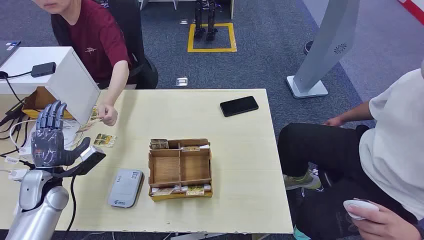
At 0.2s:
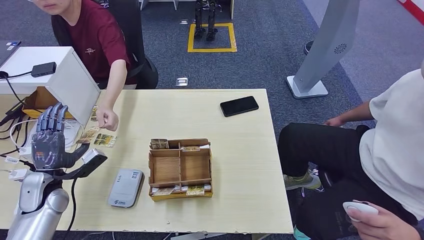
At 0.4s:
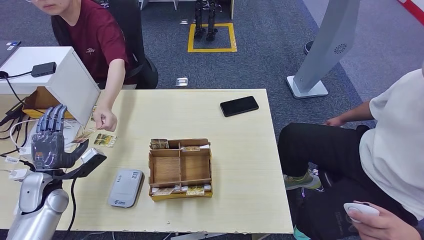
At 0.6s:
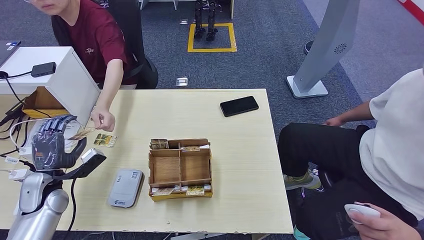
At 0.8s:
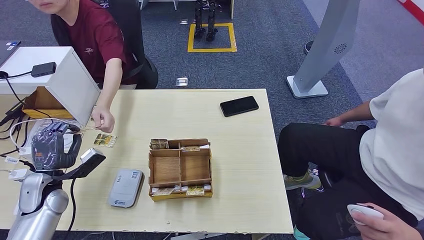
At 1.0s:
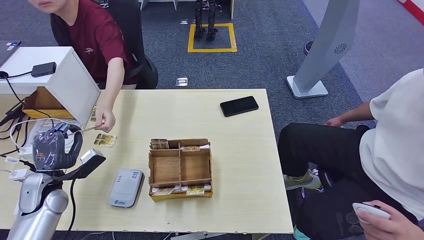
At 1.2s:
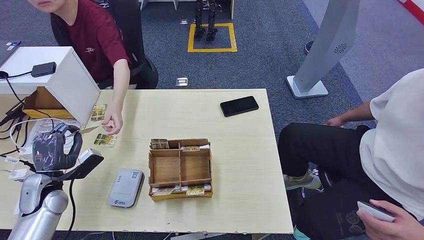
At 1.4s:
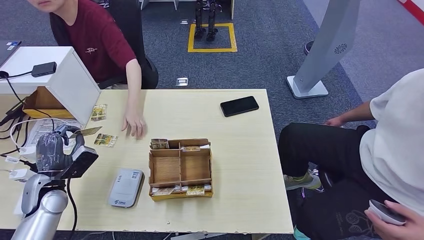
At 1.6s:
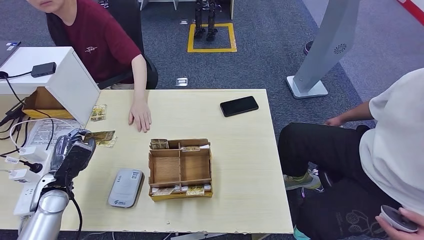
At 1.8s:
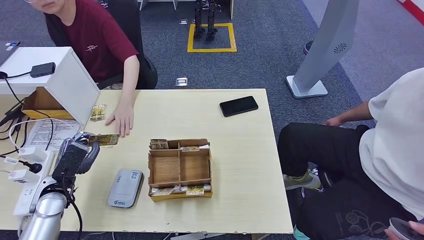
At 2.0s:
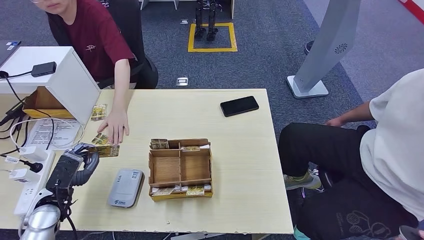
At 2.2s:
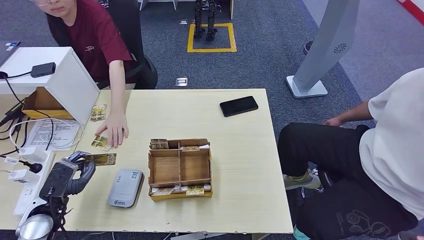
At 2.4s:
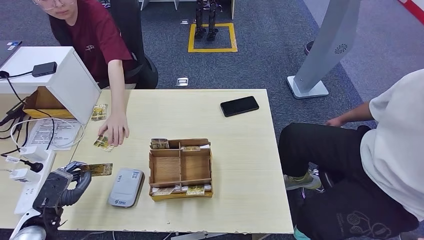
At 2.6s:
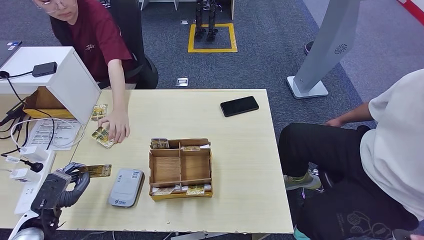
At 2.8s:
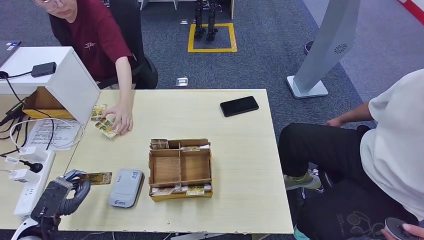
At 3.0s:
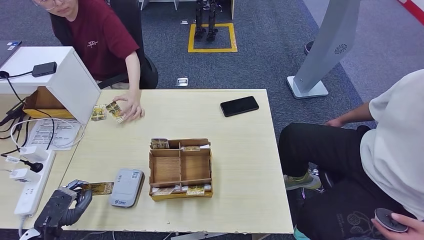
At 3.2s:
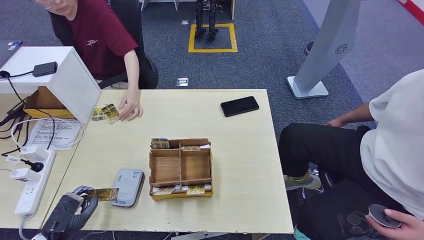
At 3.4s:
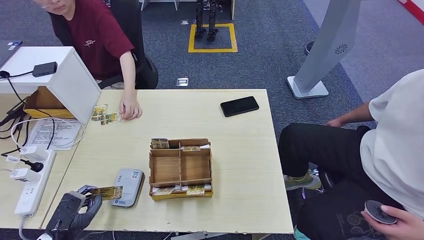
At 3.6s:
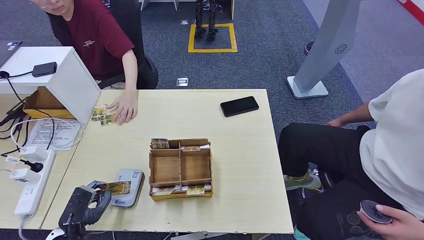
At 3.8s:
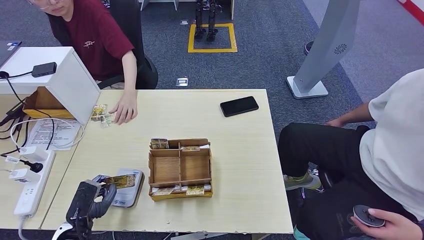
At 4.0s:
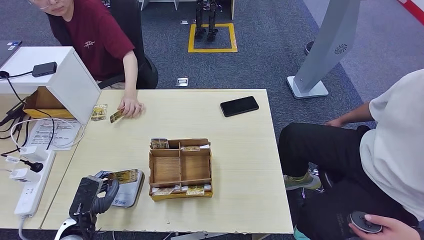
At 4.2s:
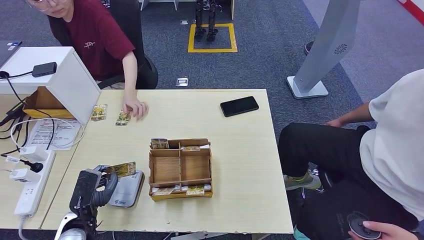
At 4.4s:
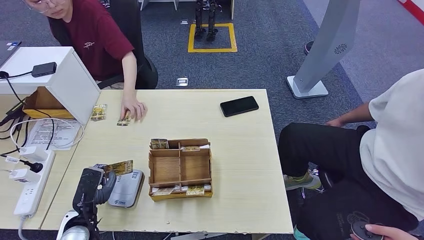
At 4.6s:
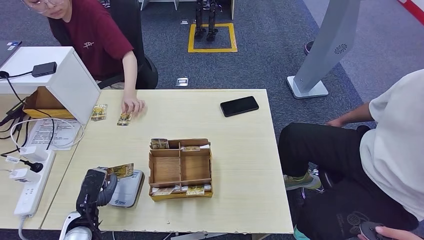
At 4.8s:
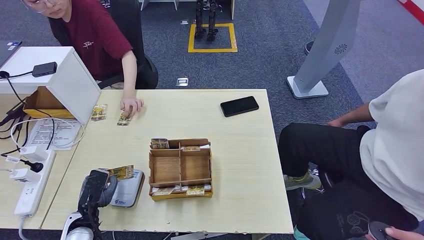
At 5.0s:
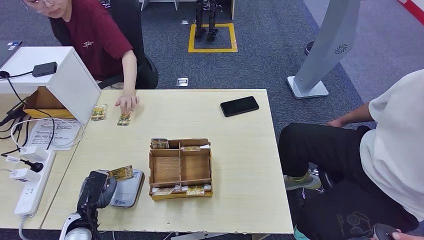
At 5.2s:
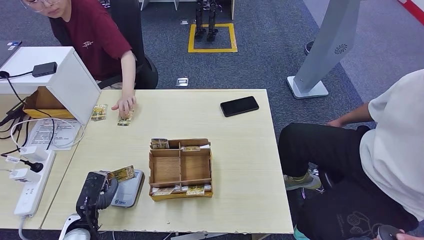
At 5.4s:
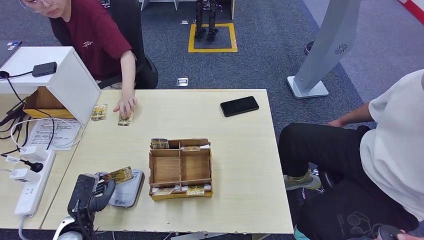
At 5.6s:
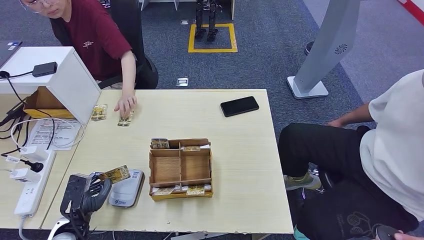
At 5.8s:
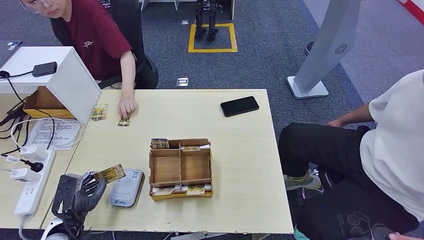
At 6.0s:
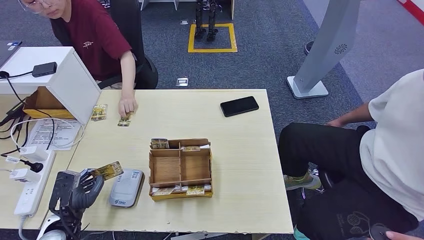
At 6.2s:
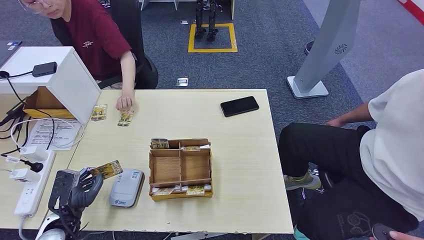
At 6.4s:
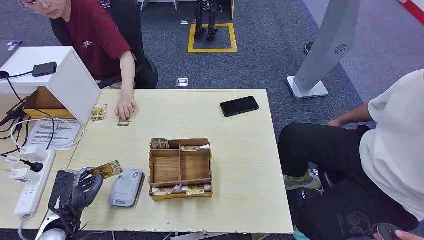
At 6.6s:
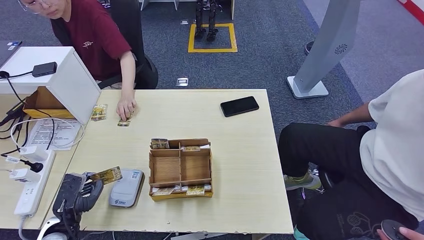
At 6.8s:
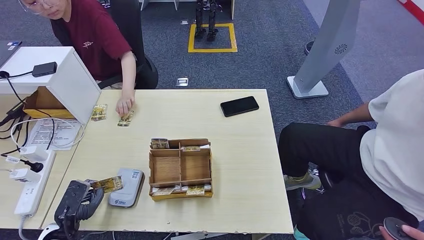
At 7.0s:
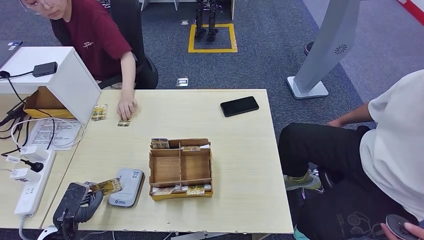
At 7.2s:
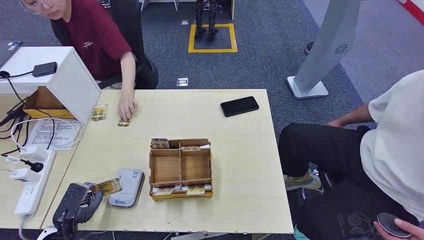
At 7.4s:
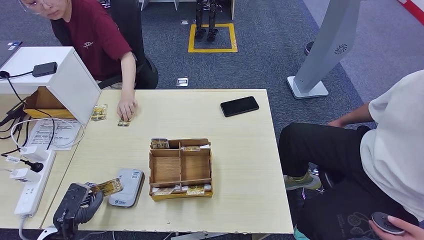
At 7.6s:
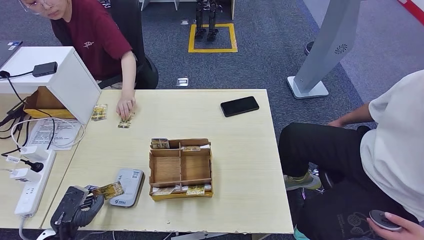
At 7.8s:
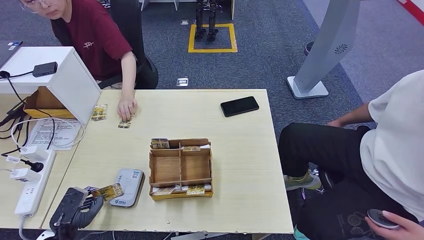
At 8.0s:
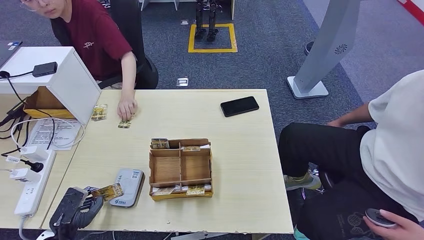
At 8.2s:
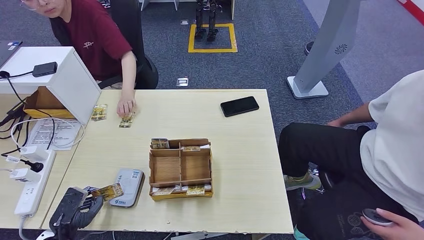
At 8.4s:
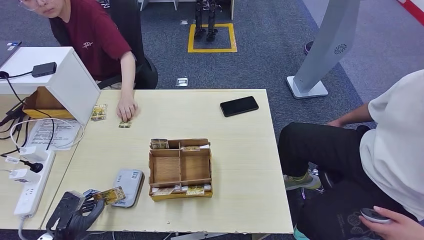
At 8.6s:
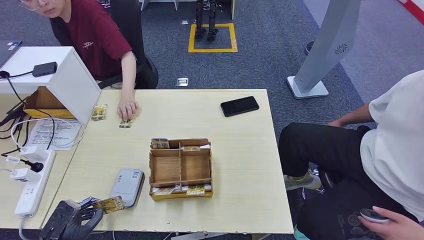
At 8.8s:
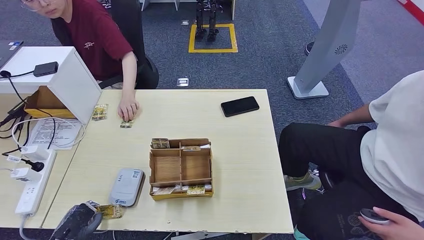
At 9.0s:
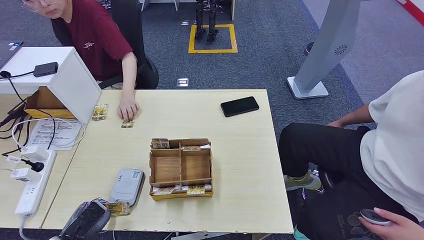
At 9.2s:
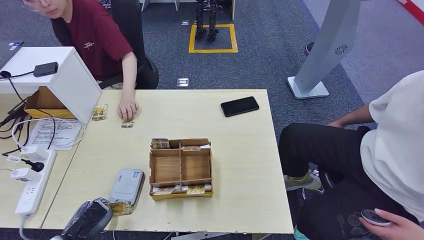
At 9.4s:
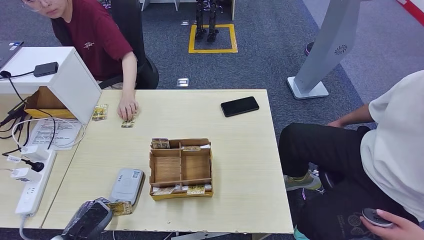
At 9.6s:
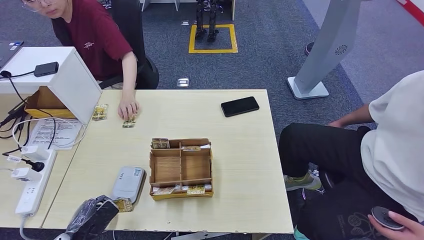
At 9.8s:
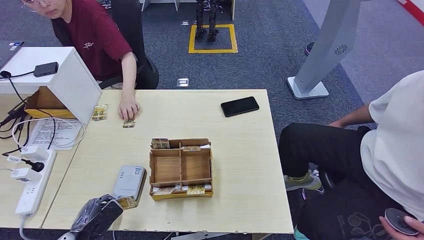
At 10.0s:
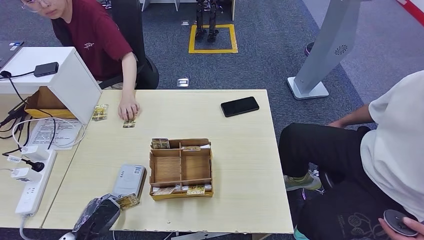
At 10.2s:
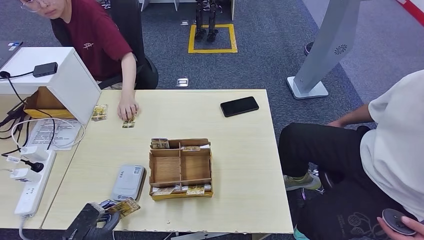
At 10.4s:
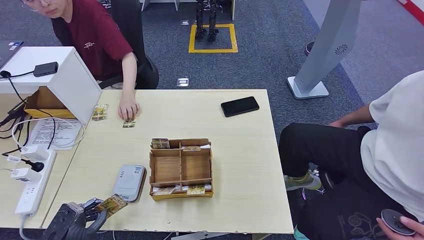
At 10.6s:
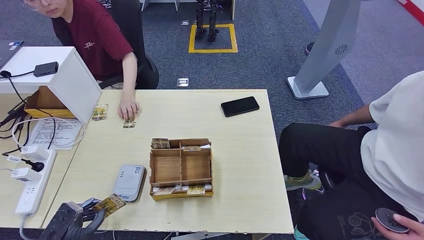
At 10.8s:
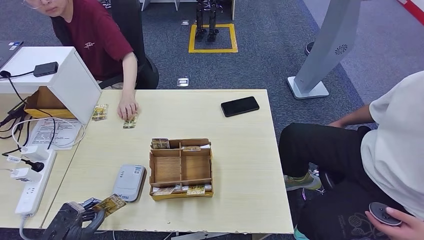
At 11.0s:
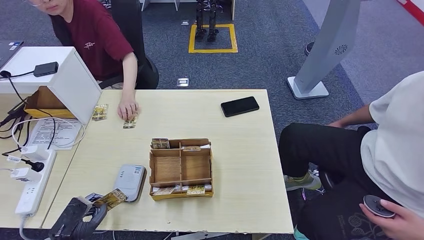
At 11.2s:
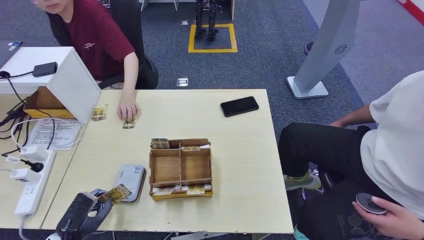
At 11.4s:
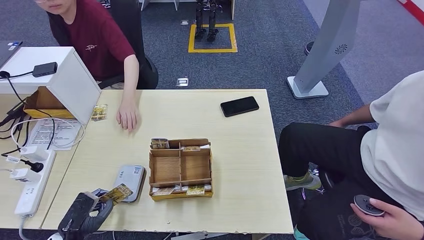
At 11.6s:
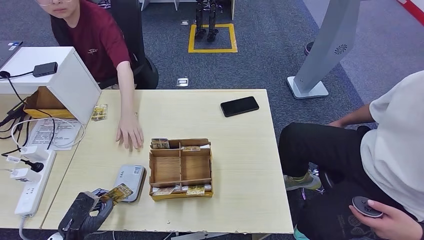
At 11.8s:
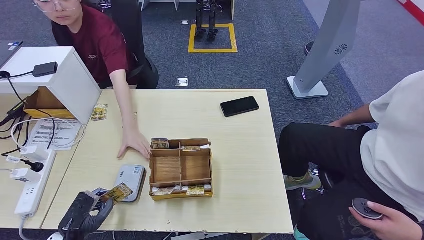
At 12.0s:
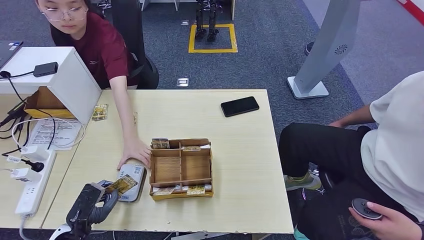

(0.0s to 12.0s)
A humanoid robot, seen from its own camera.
Step, 0.0s - 0.8s: Take the ID card from the person's hand.
Step, 1.2s - 4.8s: Place the ID card on the card reader.
1.6s - 3.0s: The left hand travels backward by roughly 10 cm.
3.0s - 4.4s: The left hand shifts approximately 10 cm to the right.
4.4s - 6.0s: The hands move only a little.
6.0s - 7.6s: The hands move only a little.
7.6s - 9.0s: The hands make only small movements.
10.4s - 12.0s: The left hand moves about 5 cm.

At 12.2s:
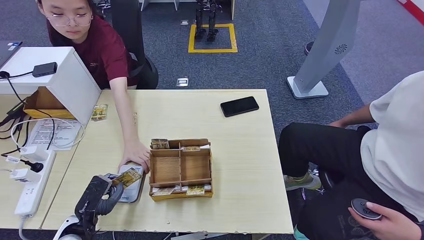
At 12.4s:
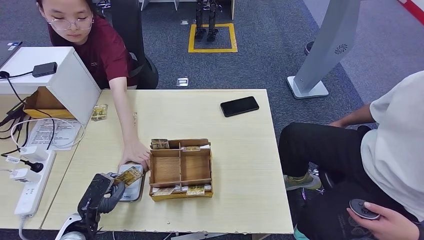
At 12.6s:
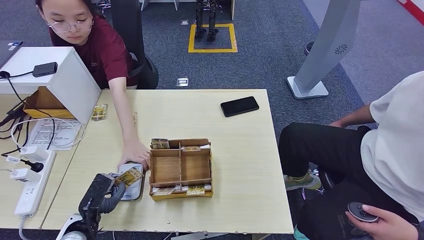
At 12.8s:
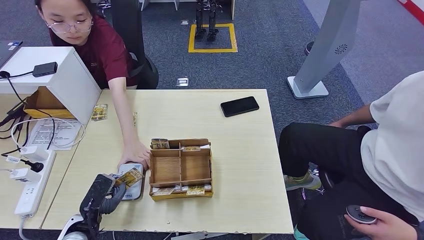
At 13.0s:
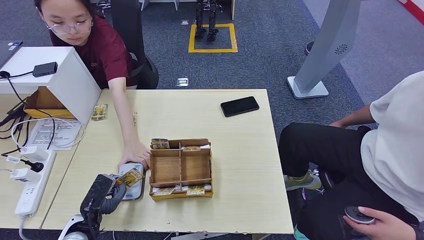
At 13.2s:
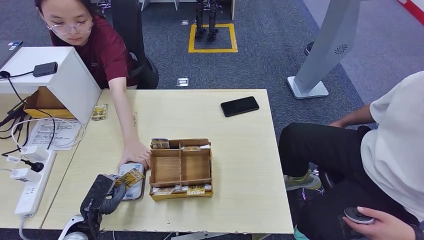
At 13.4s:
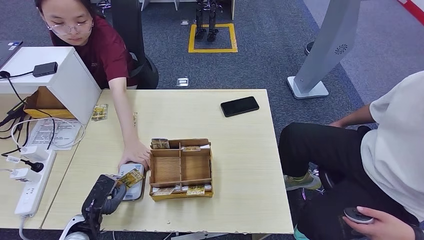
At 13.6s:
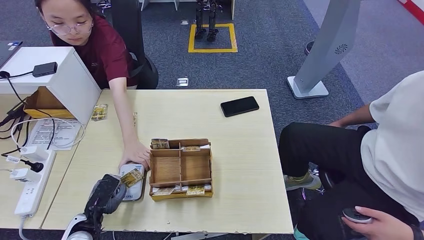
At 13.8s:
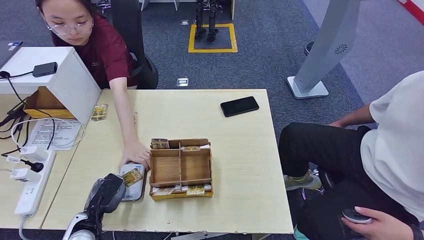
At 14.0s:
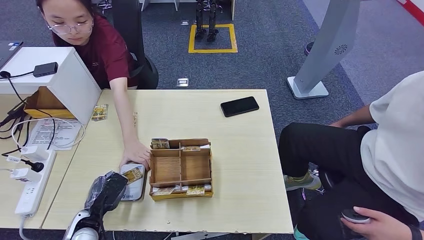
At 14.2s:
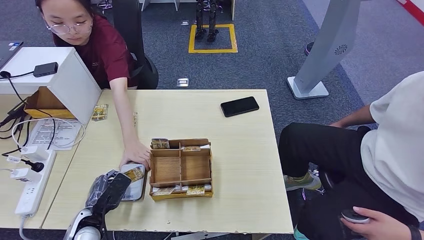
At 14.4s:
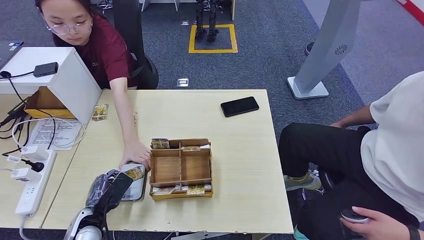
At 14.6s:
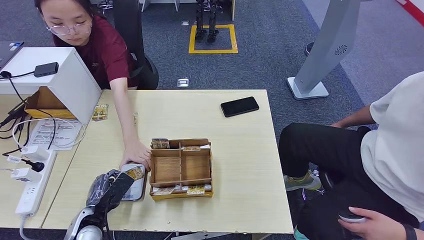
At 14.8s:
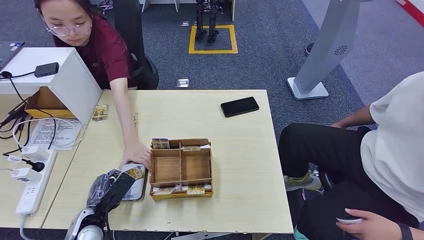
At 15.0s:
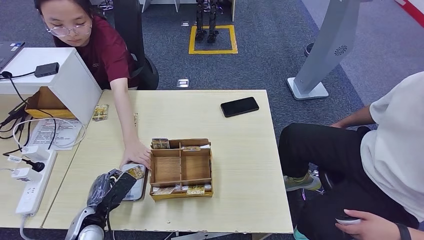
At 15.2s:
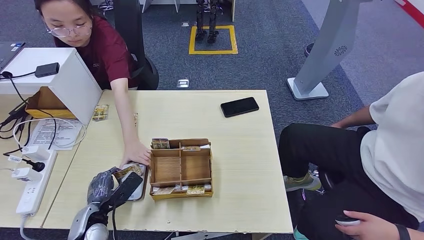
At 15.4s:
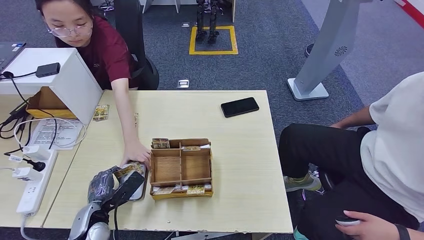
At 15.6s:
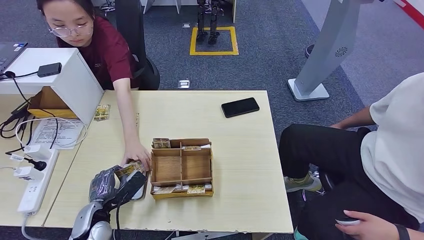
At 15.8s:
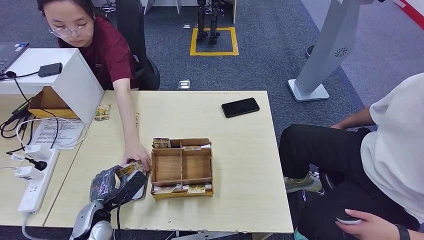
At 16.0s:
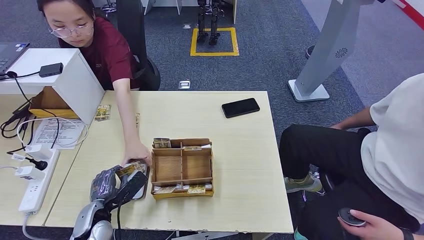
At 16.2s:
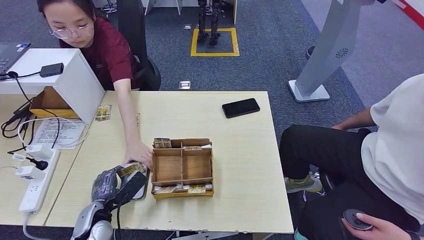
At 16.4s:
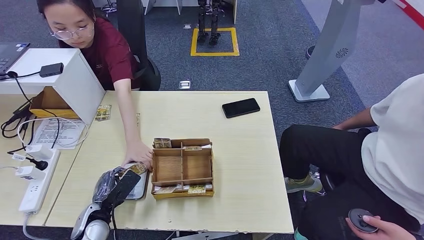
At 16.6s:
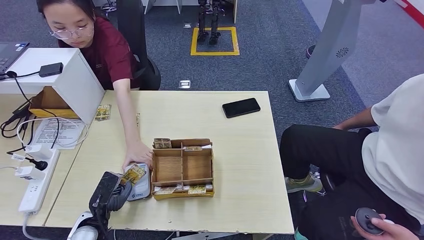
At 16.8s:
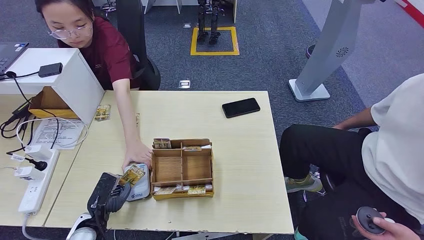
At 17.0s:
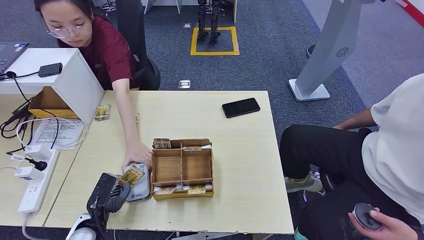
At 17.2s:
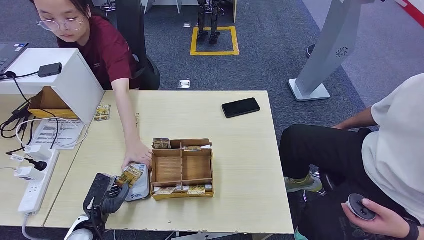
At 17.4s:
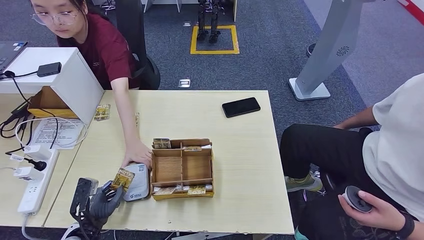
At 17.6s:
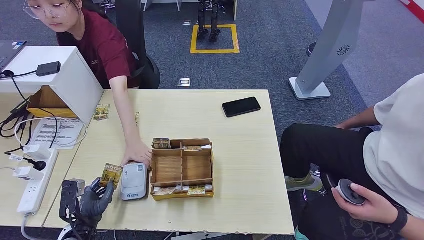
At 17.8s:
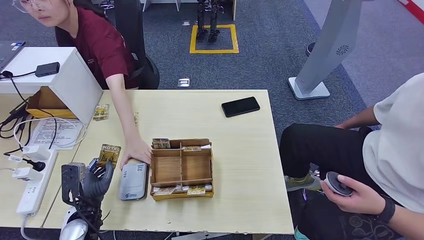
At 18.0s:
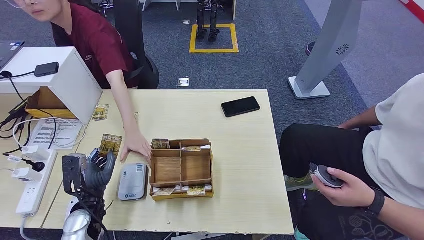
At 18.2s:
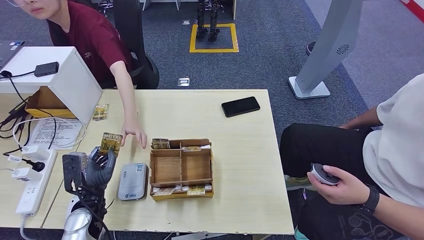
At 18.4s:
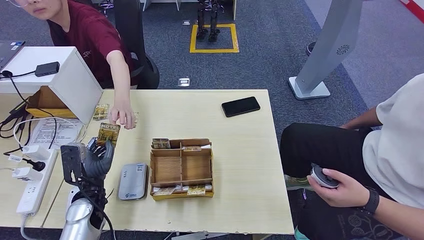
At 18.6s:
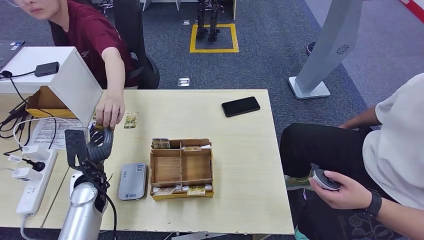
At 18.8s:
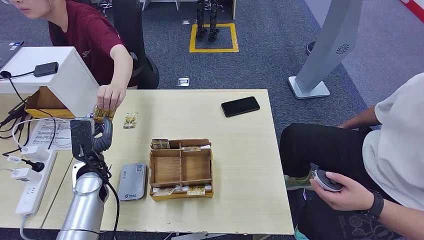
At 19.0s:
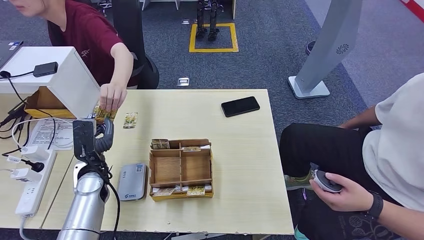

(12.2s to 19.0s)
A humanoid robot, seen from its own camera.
Step, 12.2s - 15.6s: Place the ID card on the card reader.
12.2s - 13.6s: The hands make only small movements.
15.0s - 16.2s: The hands stay close to where they were, moving slightly.
16.2s - 17.6s: The left hand shifts by roughly 5 cm.
17.6s - 19.0s: The left hand is displaced forward and upward by about 15 cm.
